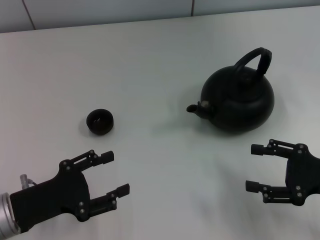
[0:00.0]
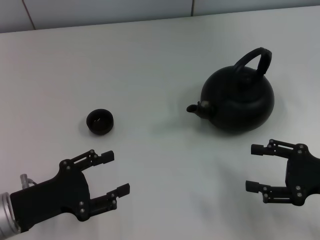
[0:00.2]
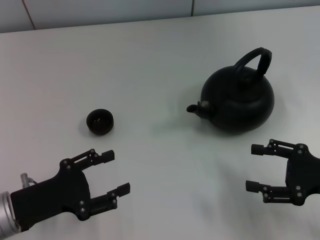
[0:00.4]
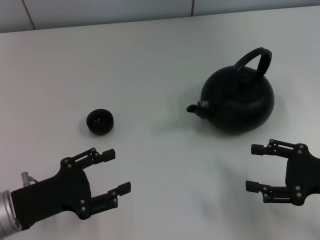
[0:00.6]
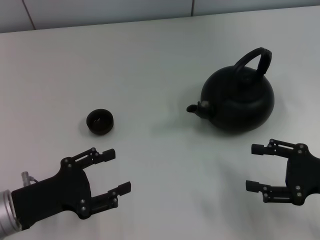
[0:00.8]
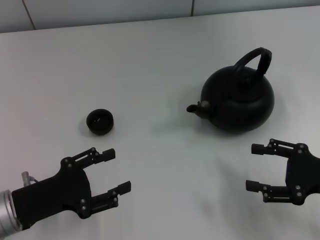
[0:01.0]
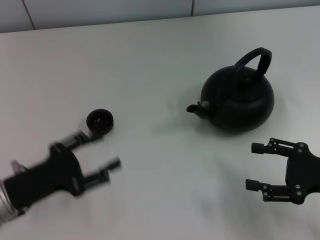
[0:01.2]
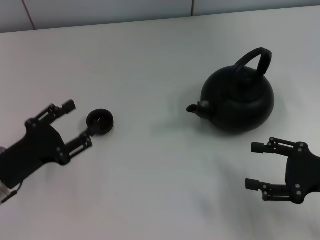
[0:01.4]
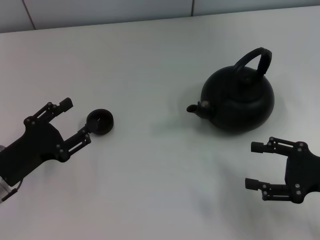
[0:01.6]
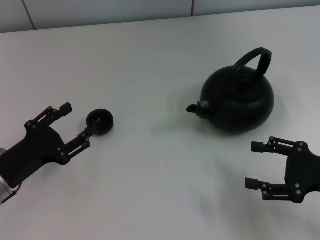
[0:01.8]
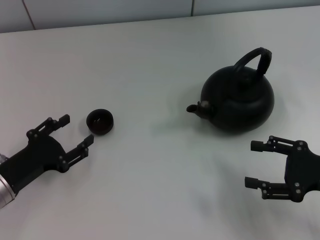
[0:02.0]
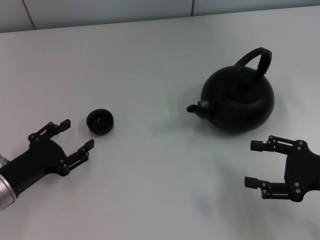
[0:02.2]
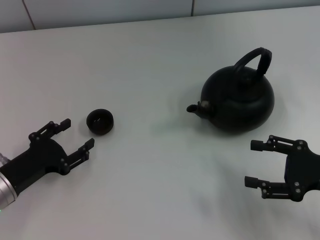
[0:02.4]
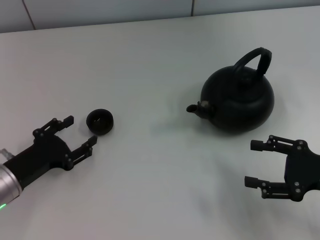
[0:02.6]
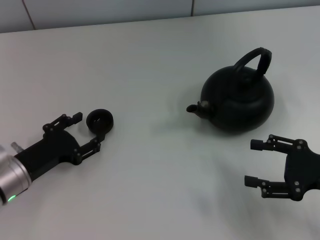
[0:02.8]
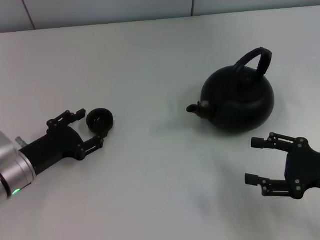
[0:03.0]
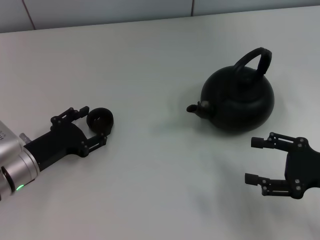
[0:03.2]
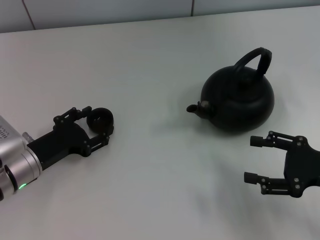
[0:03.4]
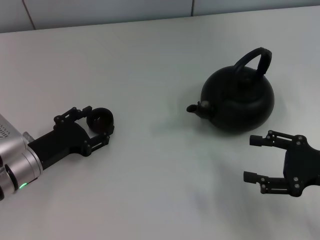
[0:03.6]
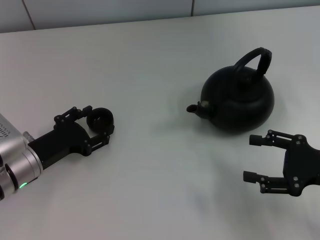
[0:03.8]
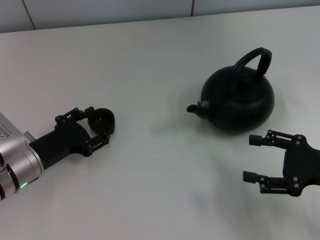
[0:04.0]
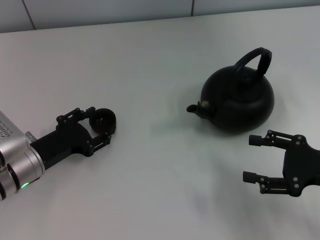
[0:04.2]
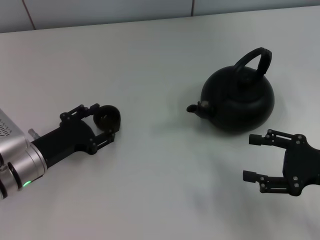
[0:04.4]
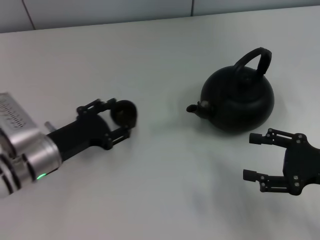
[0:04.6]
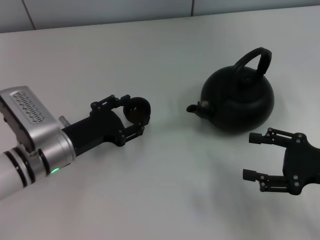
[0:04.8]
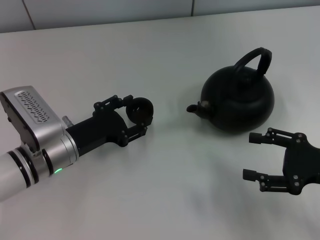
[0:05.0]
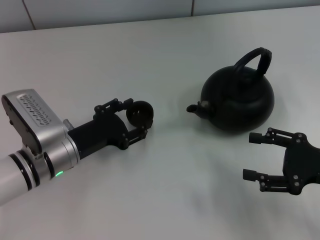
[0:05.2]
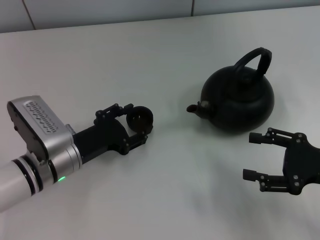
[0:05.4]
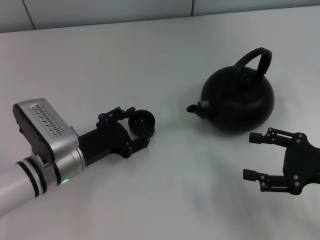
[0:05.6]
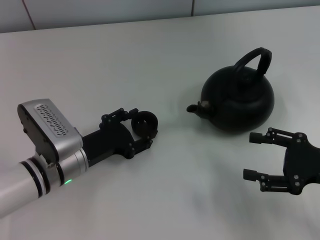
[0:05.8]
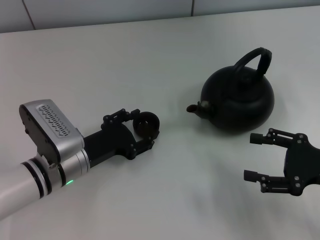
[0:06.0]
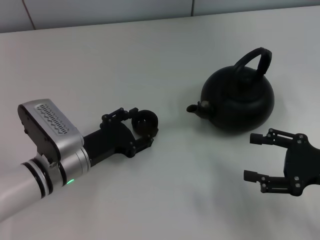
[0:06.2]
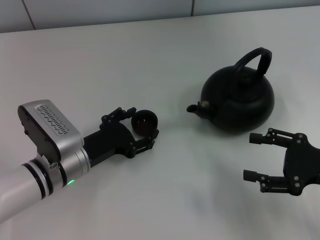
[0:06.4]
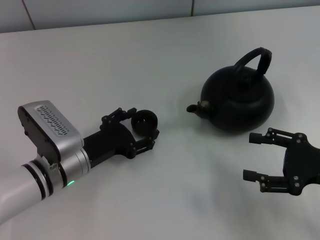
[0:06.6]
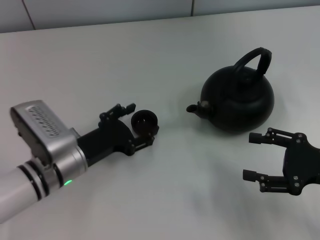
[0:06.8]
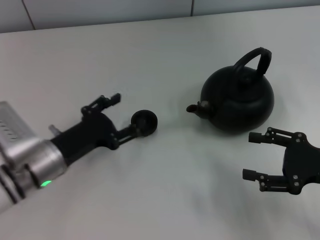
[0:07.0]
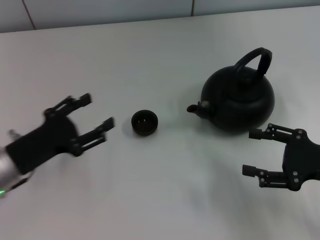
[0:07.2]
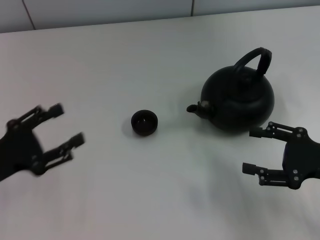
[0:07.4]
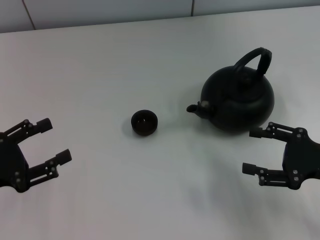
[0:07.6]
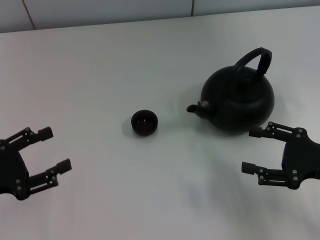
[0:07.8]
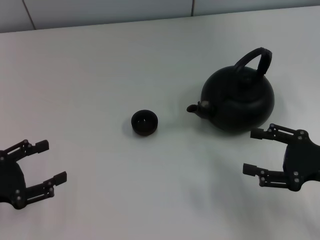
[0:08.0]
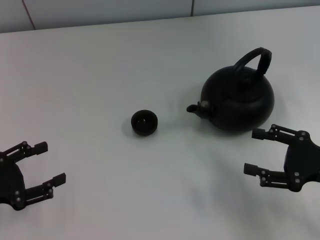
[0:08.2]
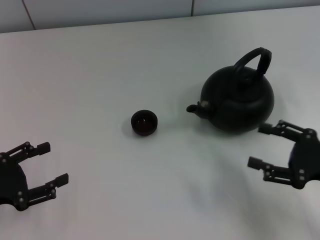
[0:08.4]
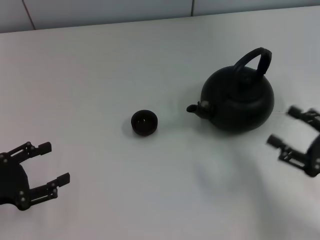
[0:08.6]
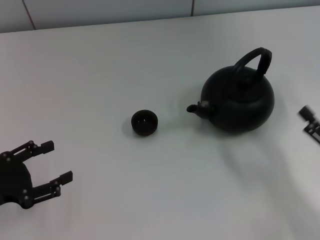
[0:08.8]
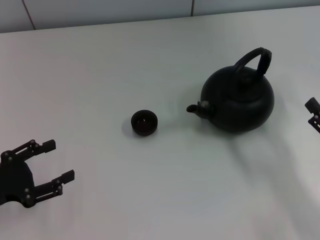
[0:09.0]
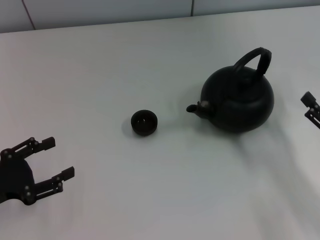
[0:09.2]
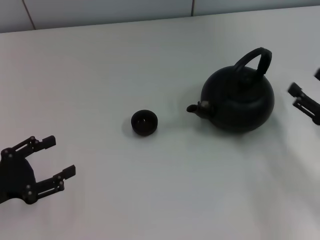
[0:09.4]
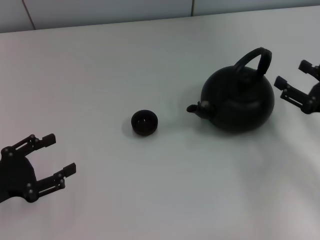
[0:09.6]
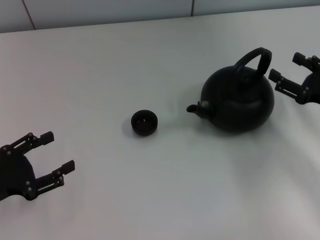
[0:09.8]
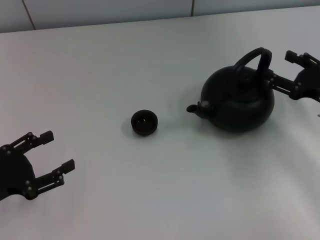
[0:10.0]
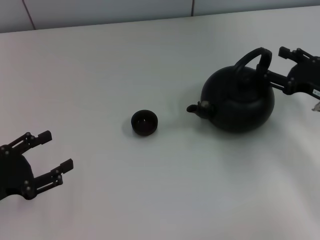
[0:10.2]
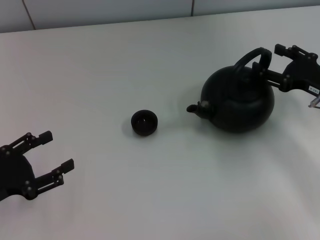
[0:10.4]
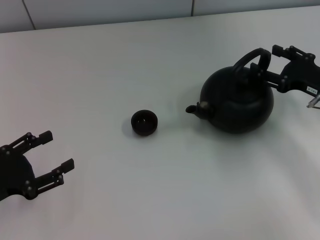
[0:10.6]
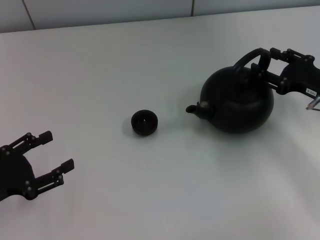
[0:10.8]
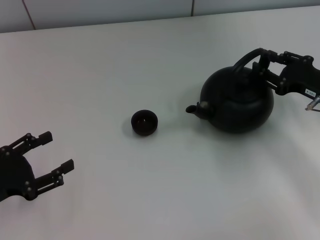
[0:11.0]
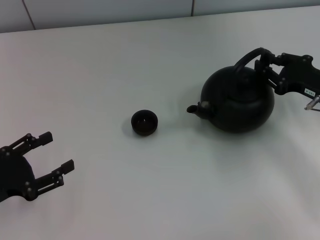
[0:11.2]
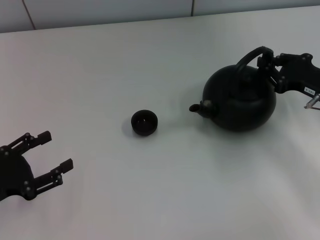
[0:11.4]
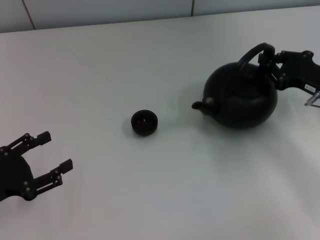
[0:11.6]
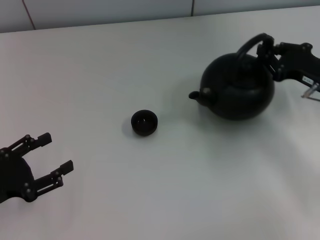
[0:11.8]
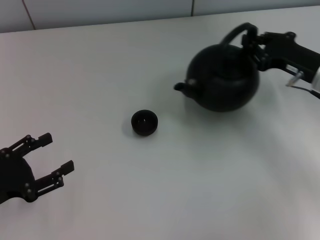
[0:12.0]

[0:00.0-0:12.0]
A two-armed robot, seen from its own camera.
Task of the whole recording: Grasp the handle of the teapot with one hand and pour tea into the teacup.
Step, 0.0 to 4.4 s: Pick up the teacup with the left gripper.
Step, 4.8 to 7.0 s: Place the teacup in the center of view with the left gripper.
Step, 7.2 to 11.8 s: Pick up the teapot with the right gripper.
1.6 to 4.4 s: The grippers move only a little.
4.4 to 6.0 s: The left gripper shifts roughly 5 cm to the right.
6.0 to 7.6 s: The left gripper heads to the left and backward, covering roughly 15 cm.
7.6 to 9.0 s: The right gripper shifts some 5 cm backward.
9.0 to 10.4 s: The right gripper travels forward by some 15 cm.
10.4 to 12.0 s: The right gripper closes its fingers.

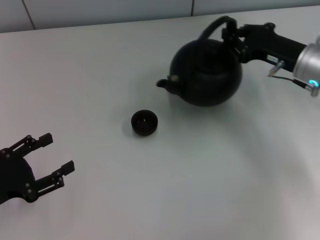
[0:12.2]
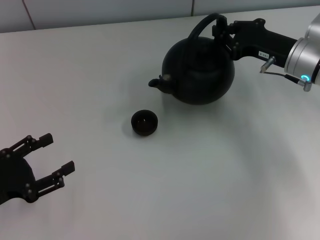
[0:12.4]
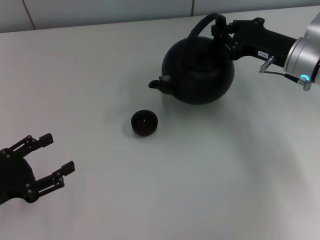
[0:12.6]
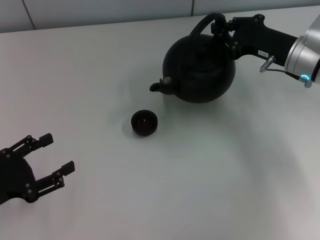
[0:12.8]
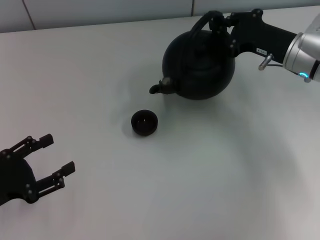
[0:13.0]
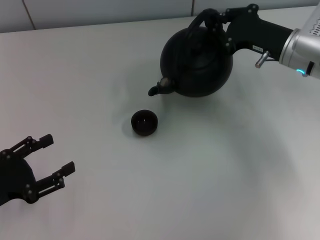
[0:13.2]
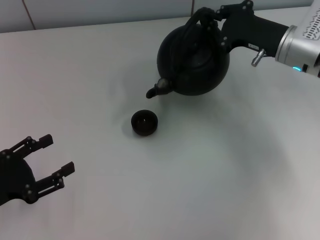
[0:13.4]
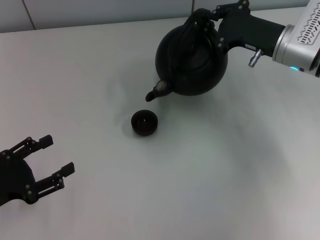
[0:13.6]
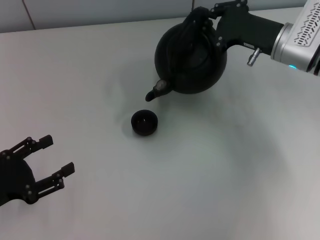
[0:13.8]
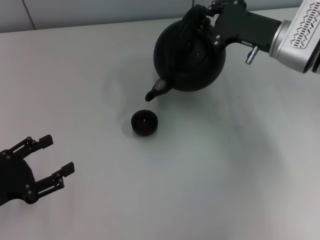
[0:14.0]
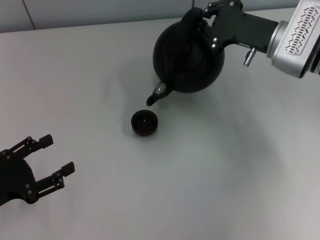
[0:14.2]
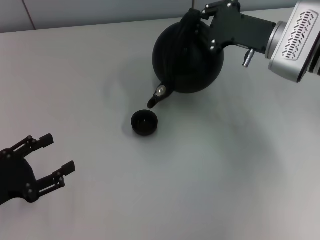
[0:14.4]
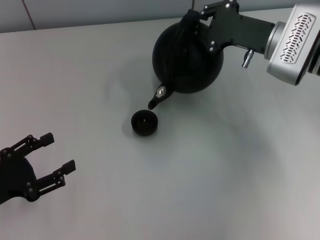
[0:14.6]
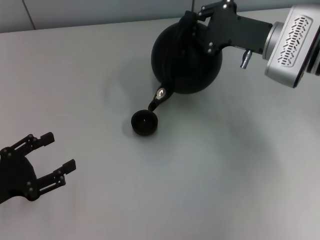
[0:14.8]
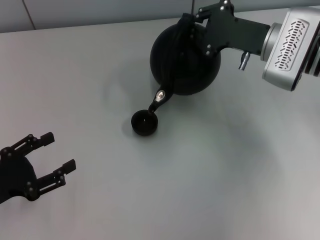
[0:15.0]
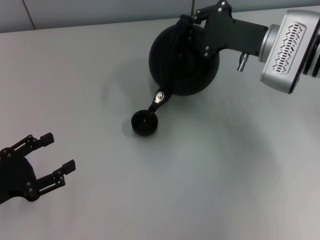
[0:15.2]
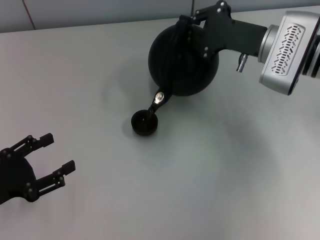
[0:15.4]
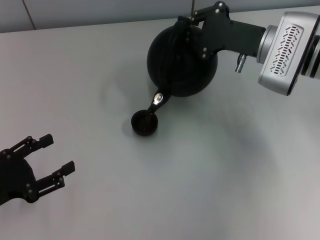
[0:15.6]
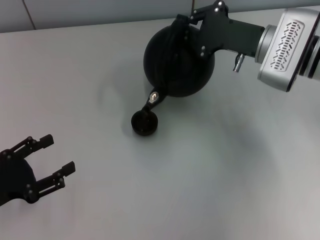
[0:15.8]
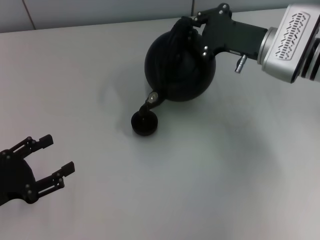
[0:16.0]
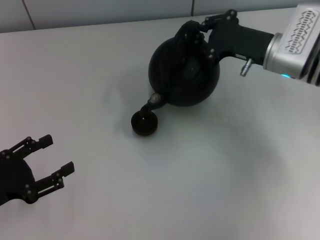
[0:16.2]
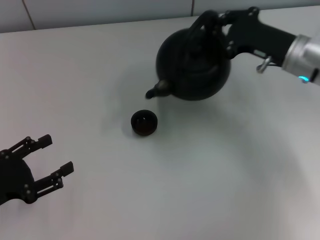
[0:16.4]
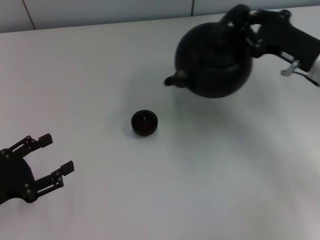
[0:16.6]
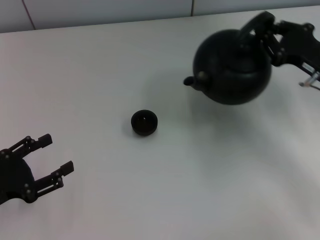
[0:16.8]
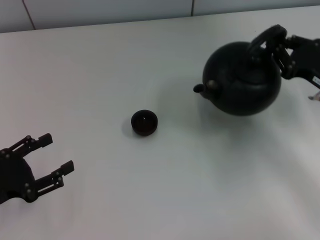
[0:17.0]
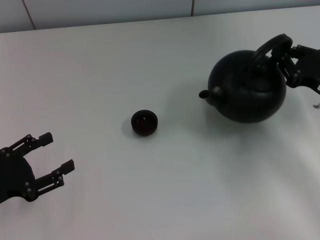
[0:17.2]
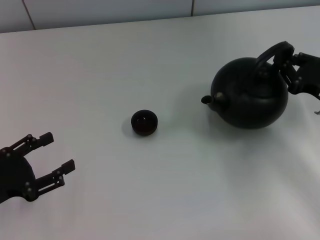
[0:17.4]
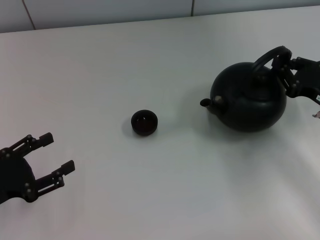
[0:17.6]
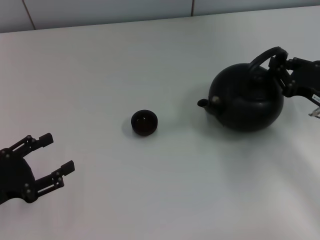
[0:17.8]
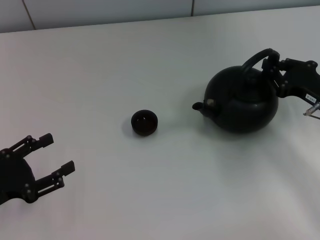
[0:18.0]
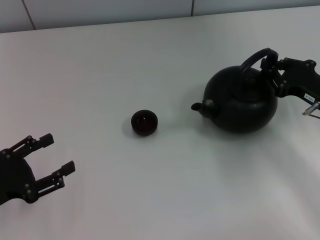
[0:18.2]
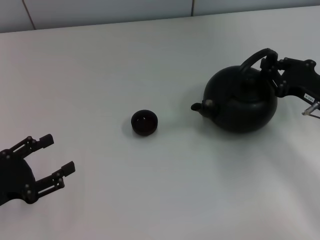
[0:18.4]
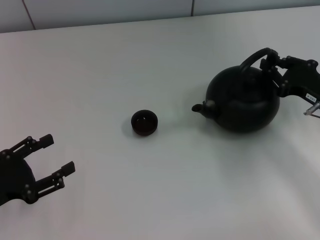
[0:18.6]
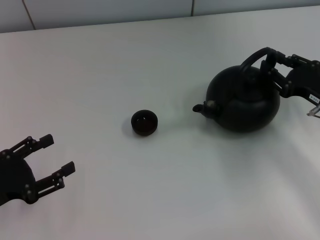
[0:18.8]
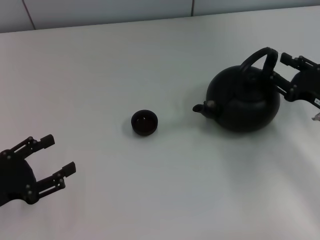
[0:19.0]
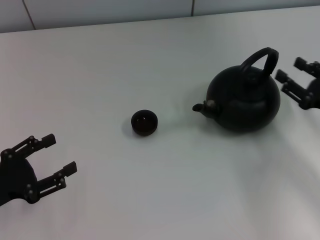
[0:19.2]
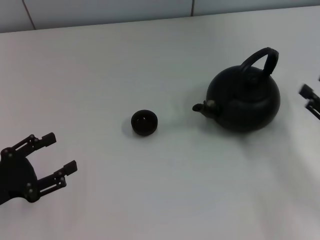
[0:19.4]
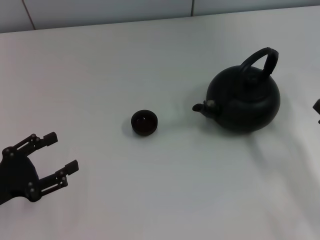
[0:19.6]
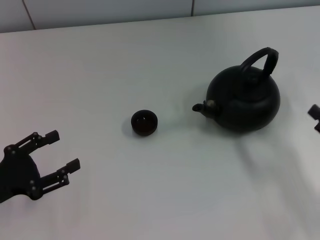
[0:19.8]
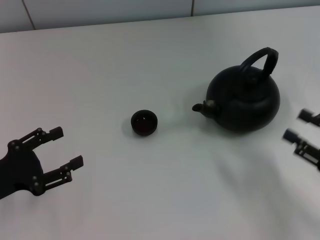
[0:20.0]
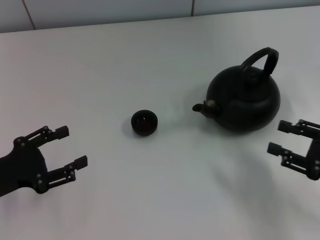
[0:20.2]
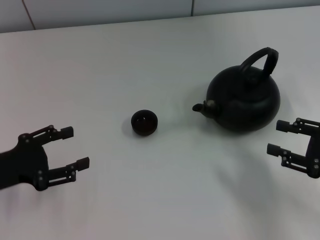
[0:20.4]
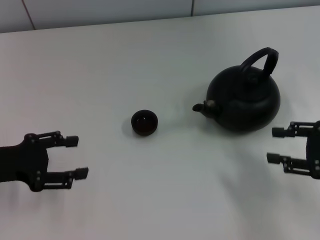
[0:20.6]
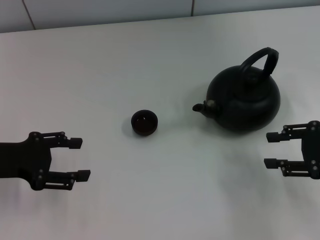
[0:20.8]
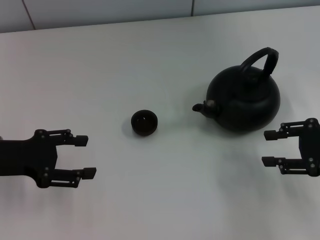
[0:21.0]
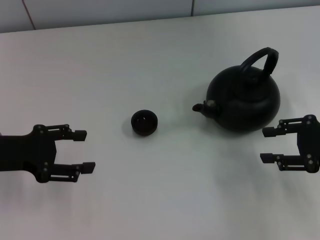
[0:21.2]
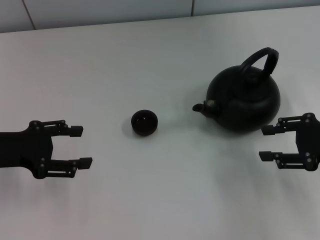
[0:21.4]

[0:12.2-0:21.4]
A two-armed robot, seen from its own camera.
Task of the whole recording: Grasp the handle of the teapot with one hand and pour tea into the teacup.
Step, 17.0 to 19.4 s: Put down the teapot with the right gripper.
13.8 to 15.2 s: There are only small adjustments of the grippers.
15.2 to 16.8 s: The right gripper heads to the right and backward, covering about 10 cm.
16.8 to 18.4 s: The grippers move only a little.
18.4 to 19.8 s: The right gripper moves backward, roughly 15 cm, and opens.
19.8 to 21.4 s: The grippers both shift forward and upward by roughly 10 cm.

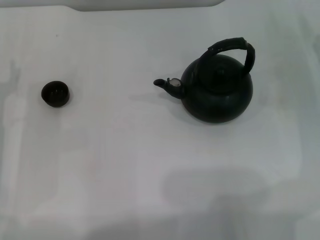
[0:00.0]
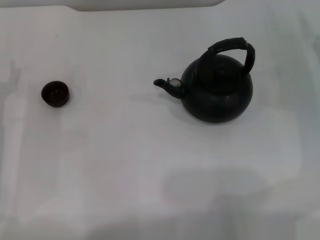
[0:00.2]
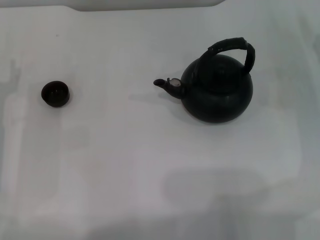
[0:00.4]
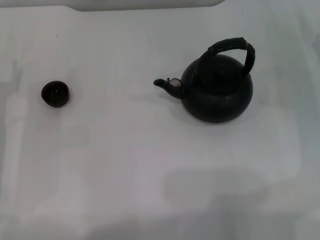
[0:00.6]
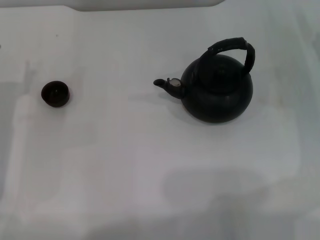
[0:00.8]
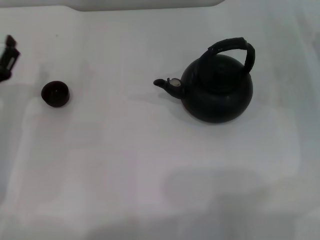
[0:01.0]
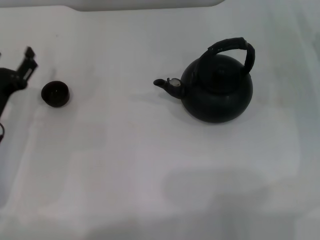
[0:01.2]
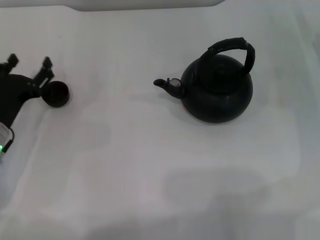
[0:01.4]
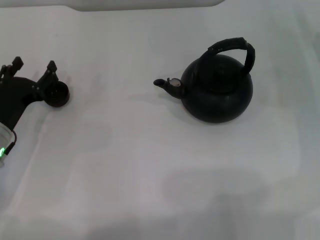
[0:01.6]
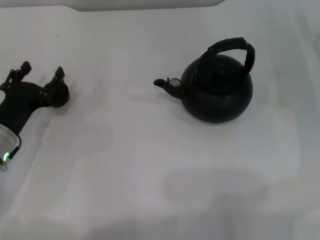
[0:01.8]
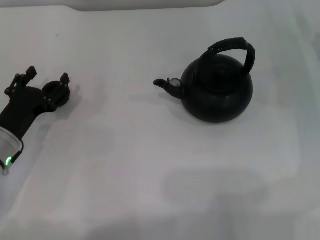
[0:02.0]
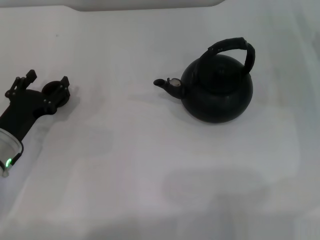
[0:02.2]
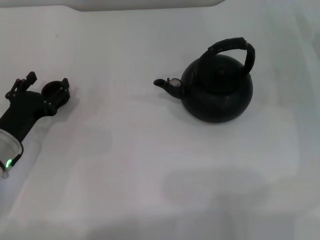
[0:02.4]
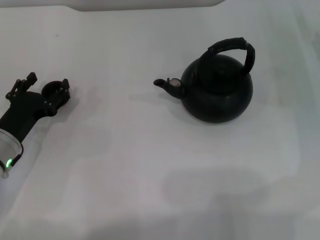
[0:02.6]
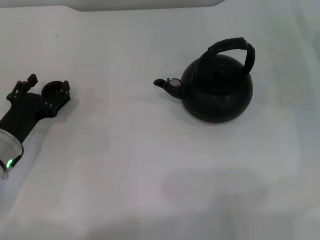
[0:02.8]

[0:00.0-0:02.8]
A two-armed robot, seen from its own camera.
Task of the whole recording: Grasp the handle of the teapot with one hand and pour tea into the teacup.
1.4 to 2.8 s: The grippers make only small movements.
